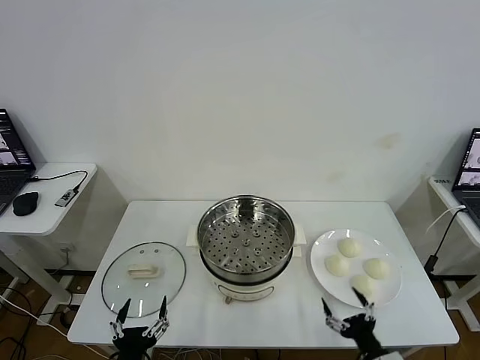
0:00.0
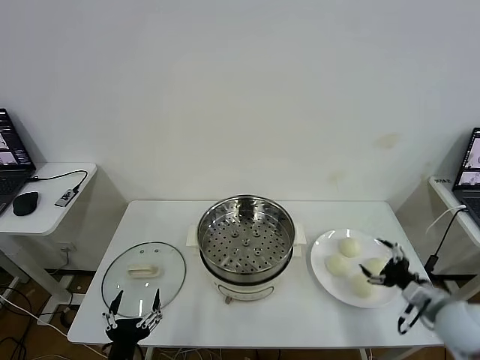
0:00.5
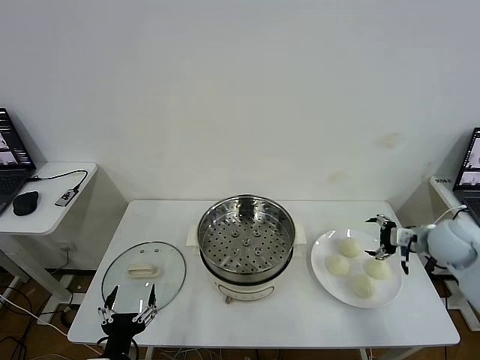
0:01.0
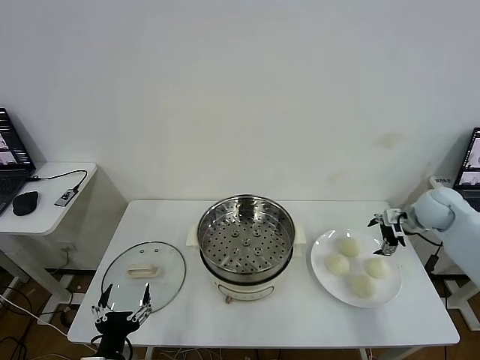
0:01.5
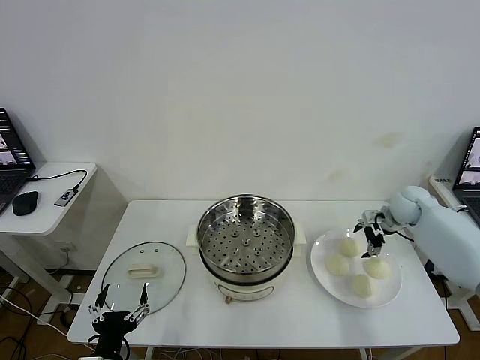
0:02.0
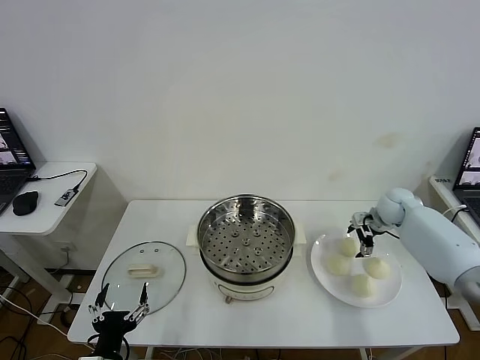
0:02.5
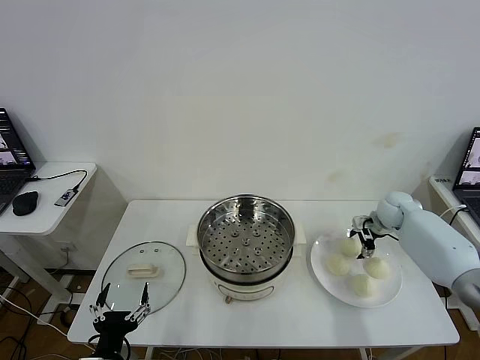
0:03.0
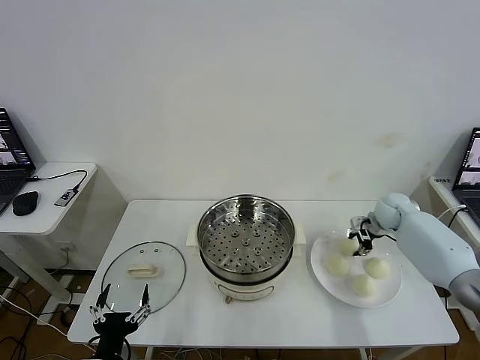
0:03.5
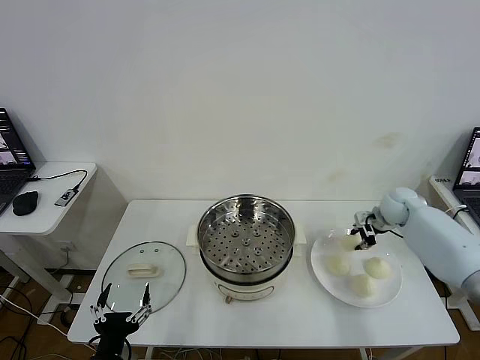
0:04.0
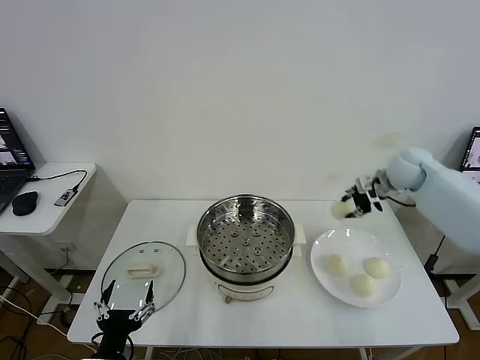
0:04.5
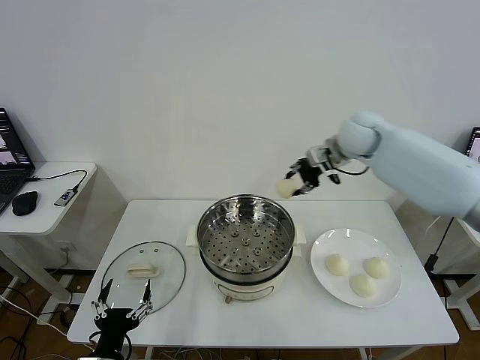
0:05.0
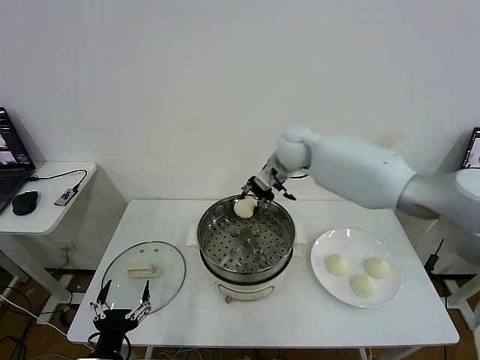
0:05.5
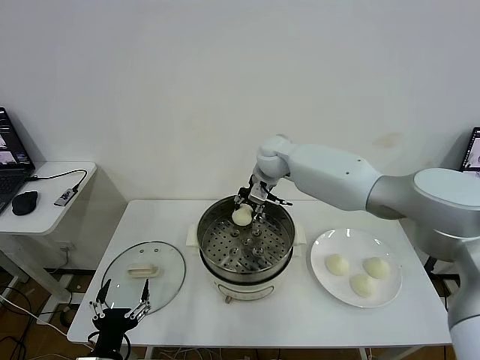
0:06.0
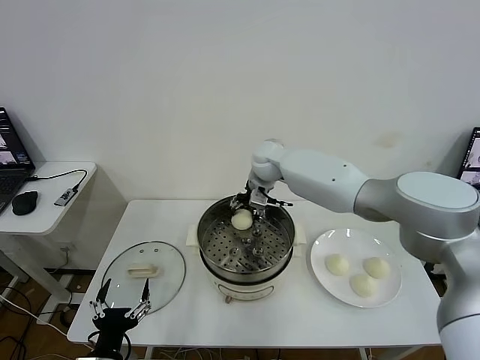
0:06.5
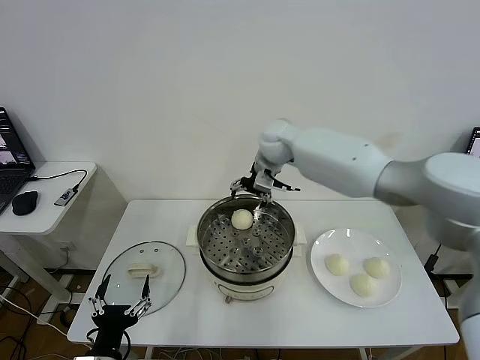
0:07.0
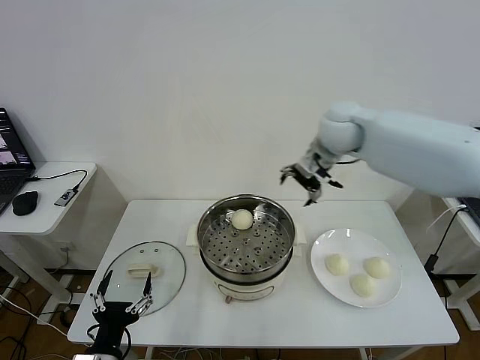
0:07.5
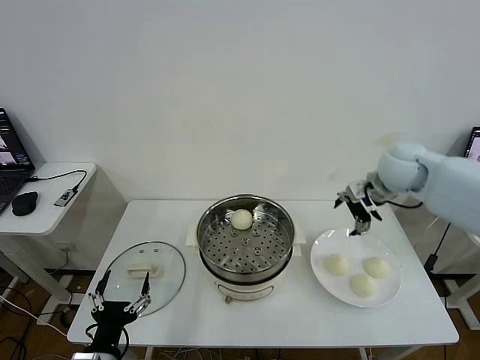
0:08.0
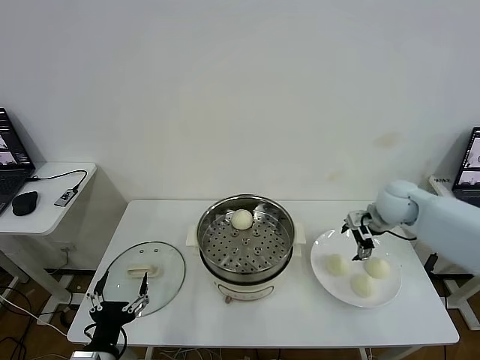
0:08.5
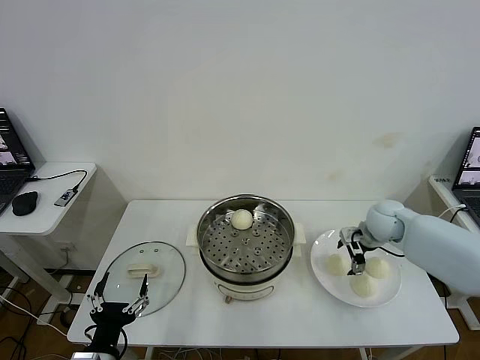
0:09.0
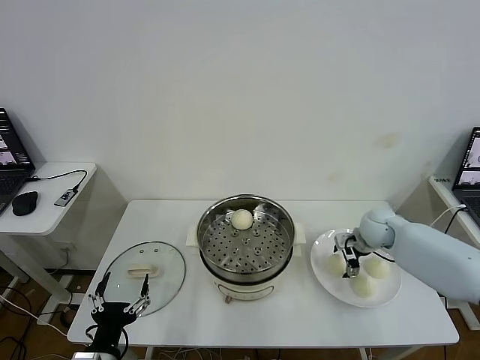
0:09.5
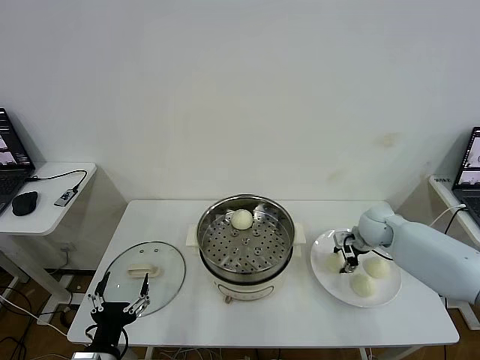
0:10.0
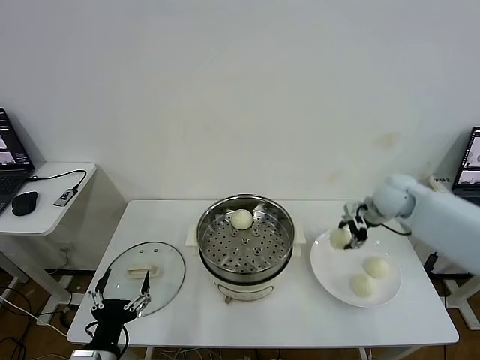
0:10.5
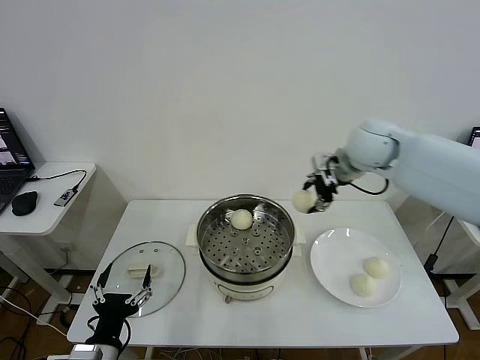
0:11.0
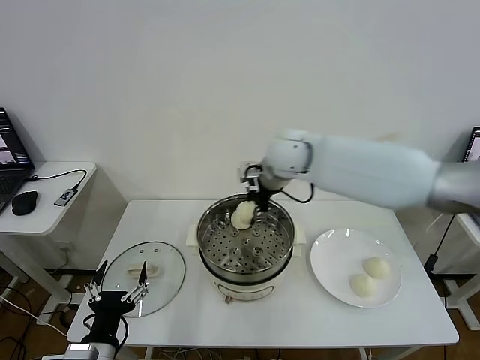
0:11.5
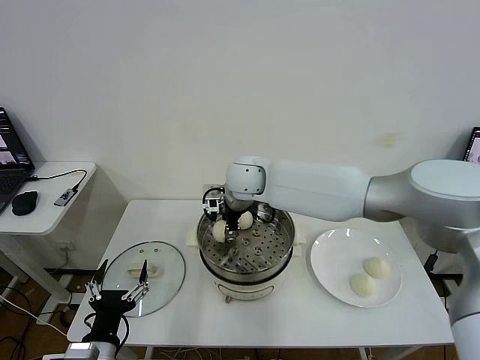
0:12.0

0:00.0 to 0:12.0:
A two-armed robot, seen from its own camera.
Task of the whole recording: take steamed baozi put them in steamer then cover it.
Step, 0:00.0 to 0:03.0: Grasp the baozi in the plate with right gripper.
Step, 0:03.5 to 0:06.5: Place the baozi on the steamer with right gripper.
Step, 0:07.0 to 0:09.5: Grasp the baozi in the plate with right gripper.
0:02.0 to 0:04.0: The right gripper closes.
0:04.0 to 0:06.0: The right gripper is displaced to the left by roughly 35 cm.
0:06.0 to 0:08.0: The right gripper goes roughly 25 cm to the right, and opens.
0:08.0 to 0:10.0: The right gripper travels downward by about 15 cm, and closes.
0:10.0 to 0:12.0: The right gripper is displaced to the left by roughly 35 cm.

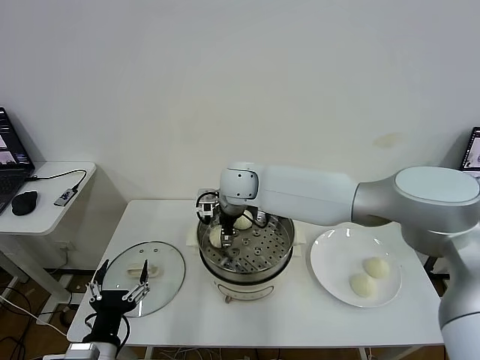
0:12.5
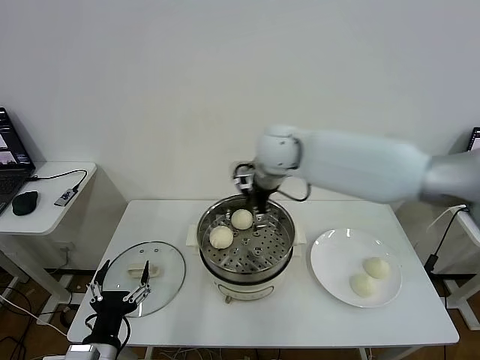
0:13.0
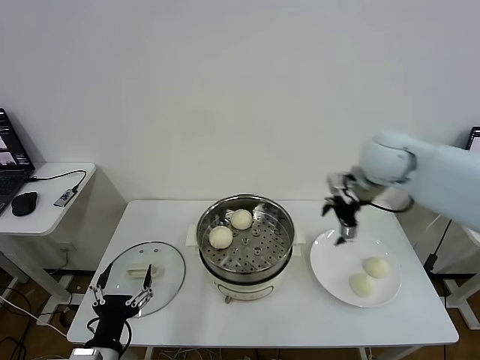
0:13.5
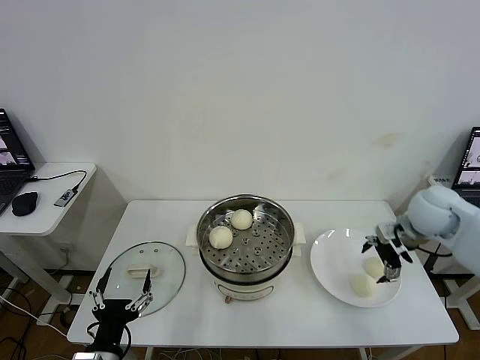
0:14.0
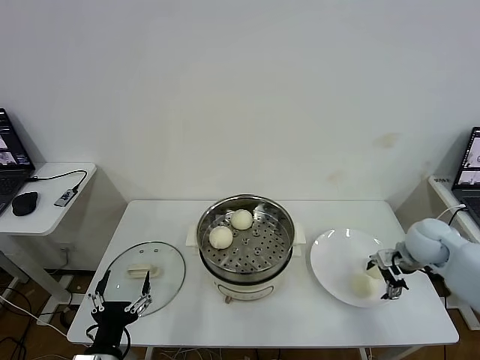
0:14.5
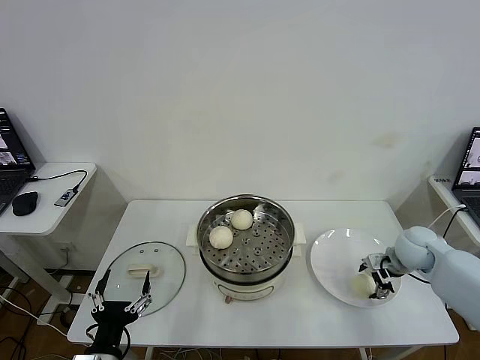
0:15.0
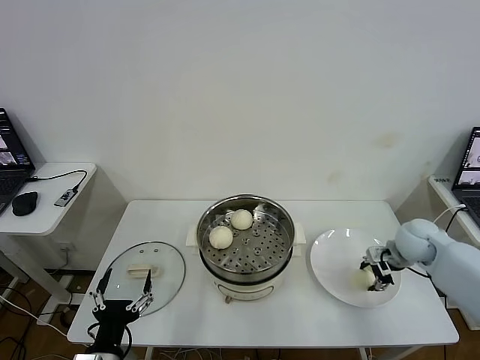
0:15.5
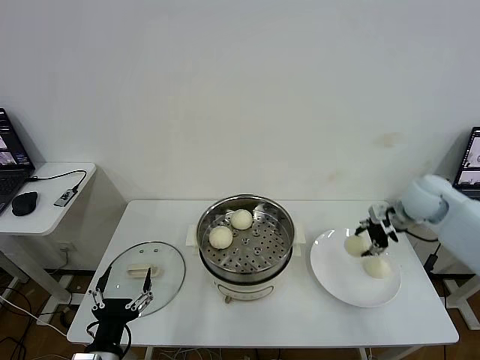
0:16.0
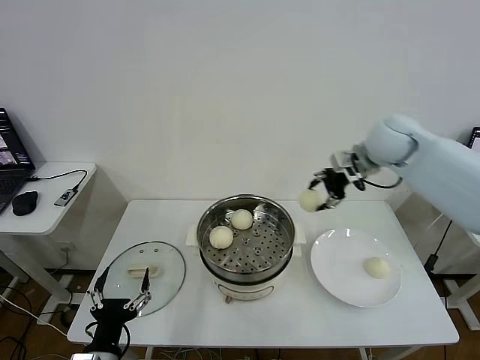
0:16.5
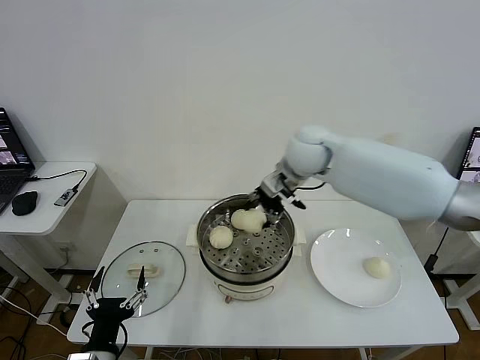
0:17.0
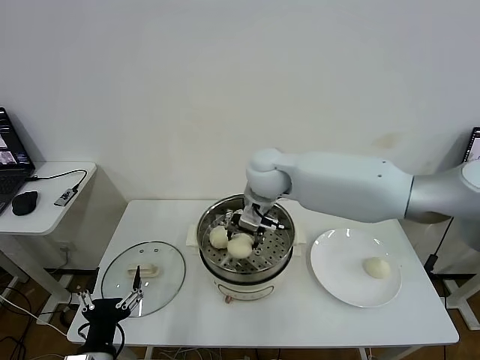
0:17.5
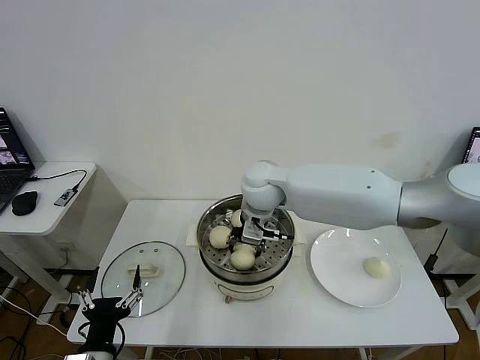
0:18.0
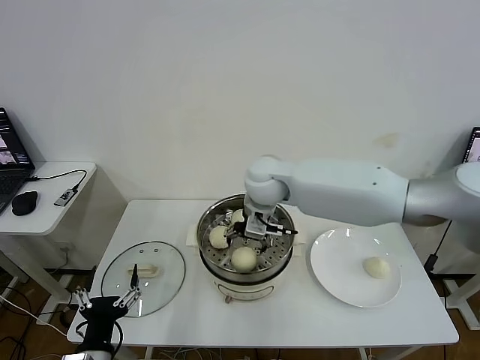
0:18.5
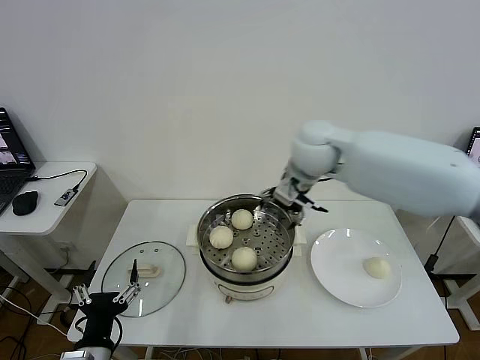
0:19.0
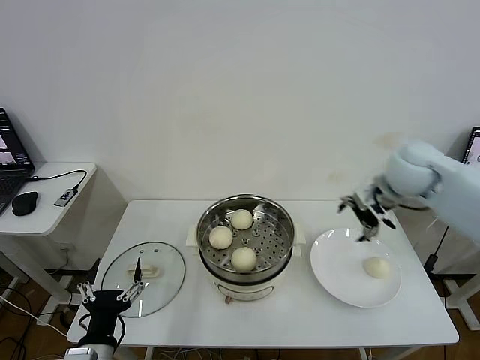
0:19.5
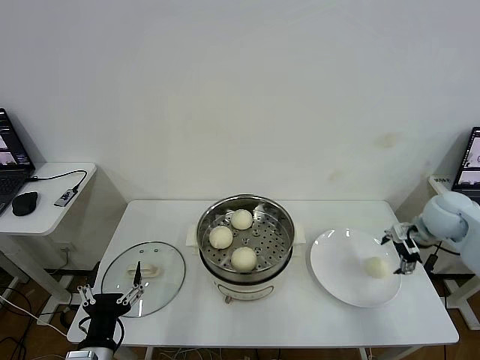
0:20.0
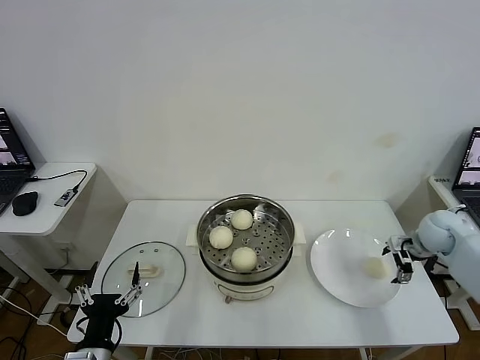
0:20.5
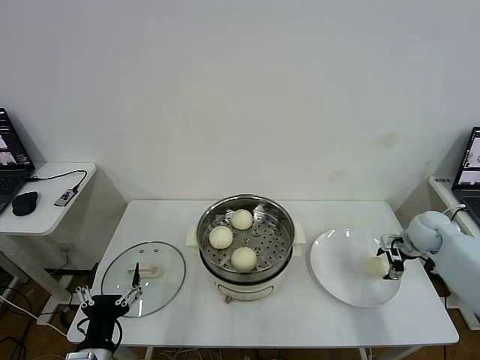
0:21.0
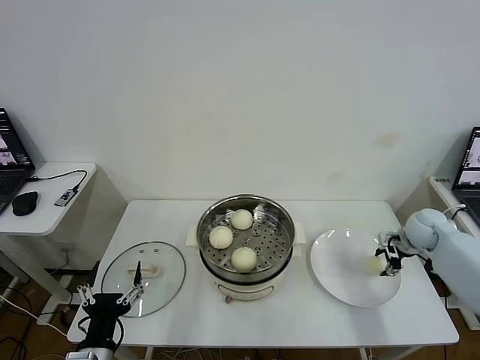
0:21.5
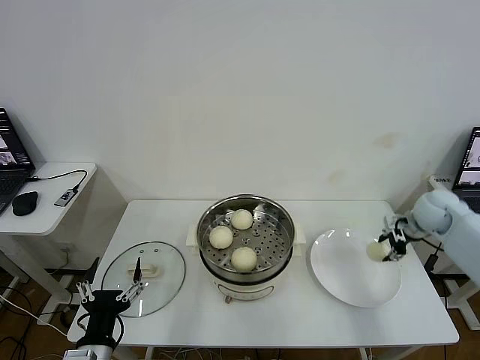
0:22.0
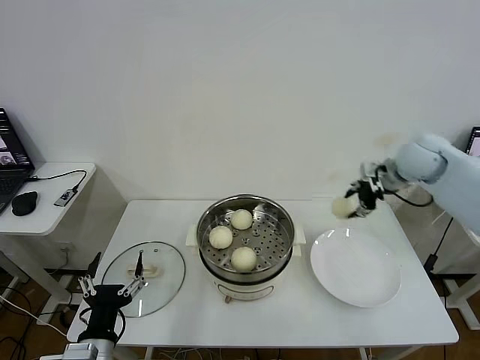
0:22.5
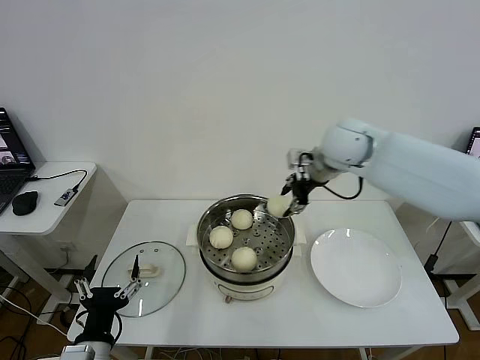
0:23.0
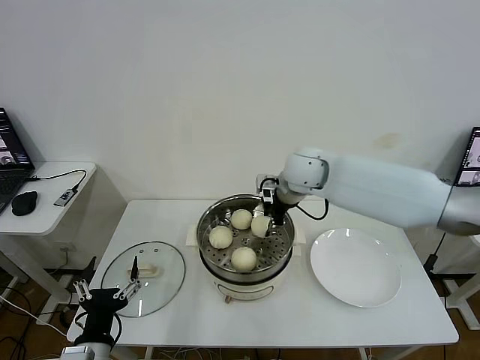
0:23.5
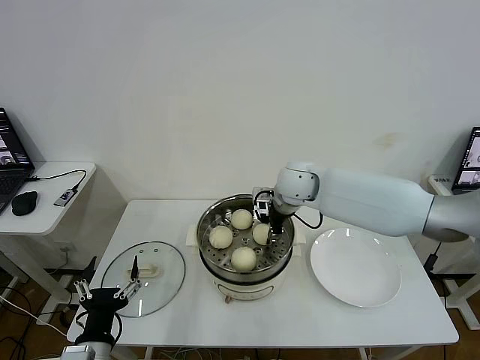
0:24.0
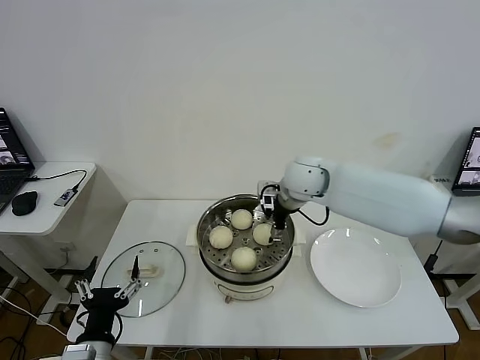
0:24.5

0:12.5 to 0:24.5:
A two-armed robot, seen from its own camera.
Task of the whole recording: take steamed baozi put them in steamer then cover it.
Step, 0:13.0 to 0:15.0: Grasp the baozi in the plate with right gripper.
Step, 0:15.5 to 0:18.5: Place the baozi on the steamer with right gripper.
Step, 0:19.0 to 0:21.0: Grasp the baozi in the plate with right gripper.
Step, 0:21.5 to 0:24.0: Place the baozi on the steamer with right gripper.
0:12.5 to 0:14.5: The right gripper moves to the right, some 40 cm.
0:14.5 to 0:16.5: The right gripper travels upward, to the left and forward by some 30 cm, and closes up.
0:16.5 to 0:18.5: The right gripper heads to the left, covering approximately 20 cm, and opens.
0:18.5 to 0:20.5: The right gripper goes approximately 40 cm to the right.
0:20.5 to 0:22.5: The right gripper goes some 20 cm upward and to the left, and closes its fingers.
0:22.5 to 0:24.5: The right gripper travels to the left by some 20 cm, and opens up.

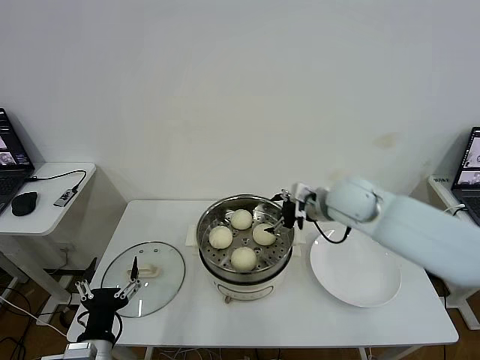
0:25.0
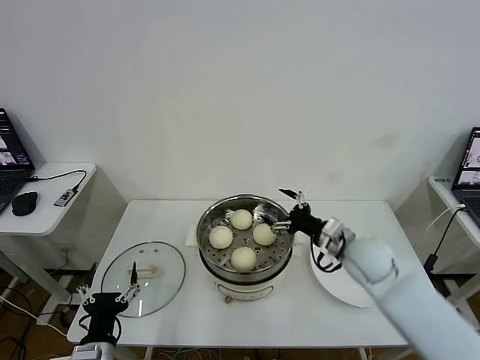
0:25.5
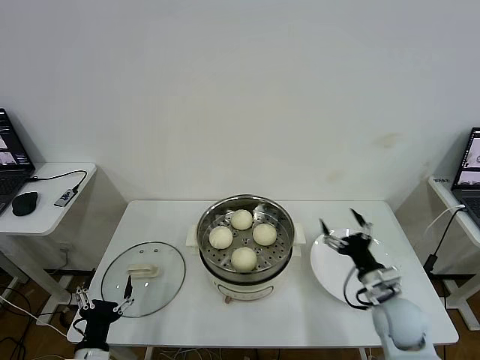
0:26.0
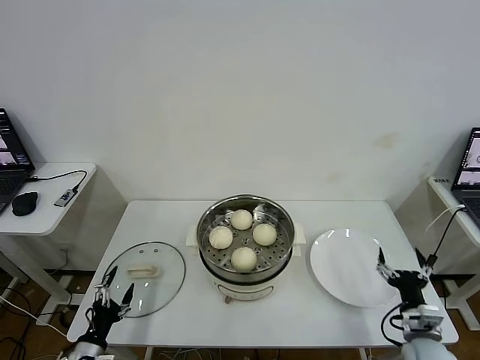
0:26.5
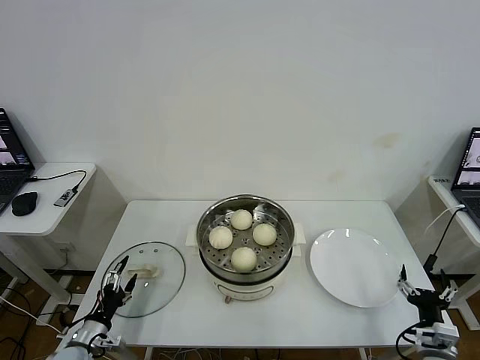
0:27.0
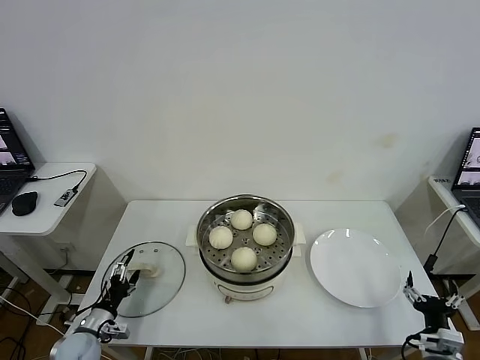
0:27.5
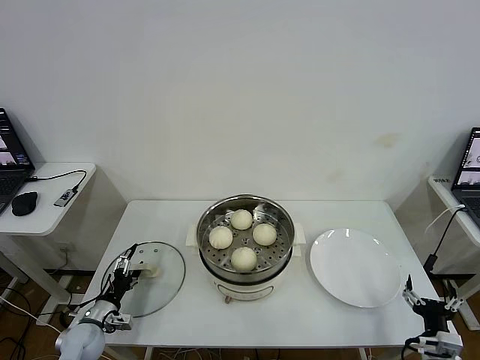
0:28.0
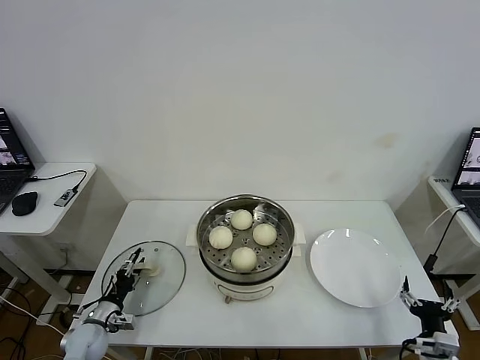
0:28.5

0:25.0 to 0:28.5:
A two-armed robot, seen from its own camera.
Task of the whole recording: take steamed baozi put them in steamer then cover it.
0:25.0 to 0:27.0: The right gripper heads backward, downward and to the right, covering some 40 cm. The left gripper goes roughly 20 cm downward, to the left and forward.
0:27.0 to 0:28.5: The left gripper goes some 5 cm forward, and closes its fingers.
